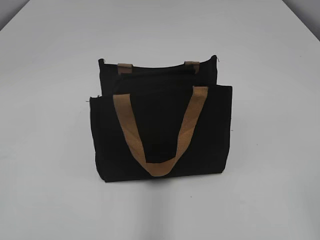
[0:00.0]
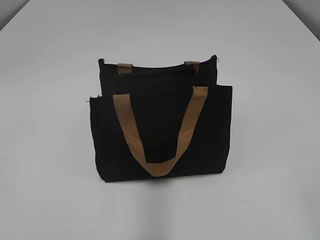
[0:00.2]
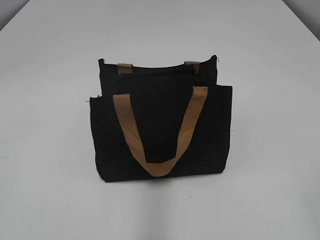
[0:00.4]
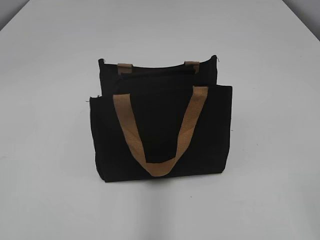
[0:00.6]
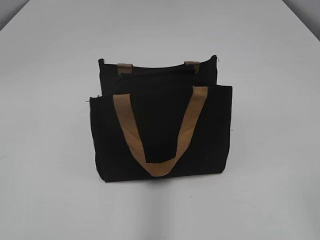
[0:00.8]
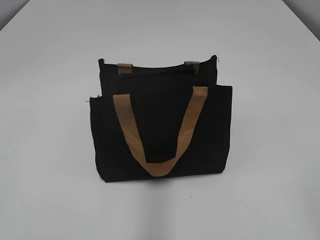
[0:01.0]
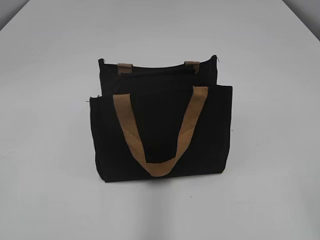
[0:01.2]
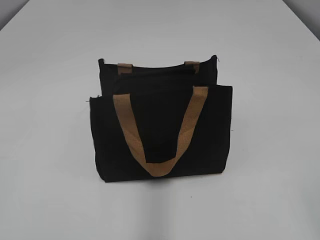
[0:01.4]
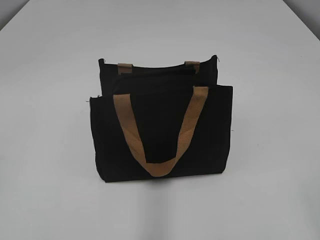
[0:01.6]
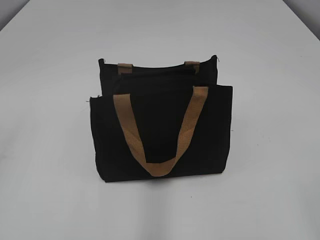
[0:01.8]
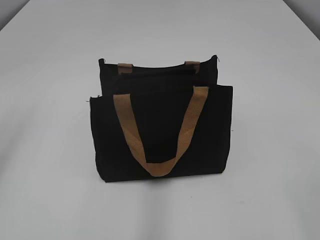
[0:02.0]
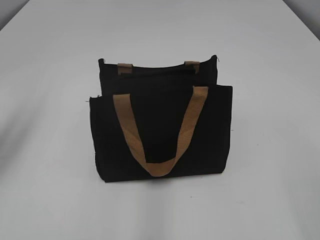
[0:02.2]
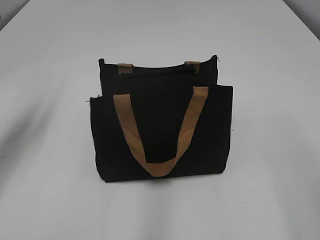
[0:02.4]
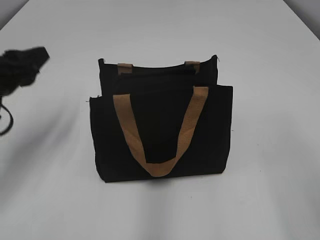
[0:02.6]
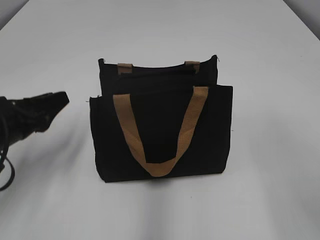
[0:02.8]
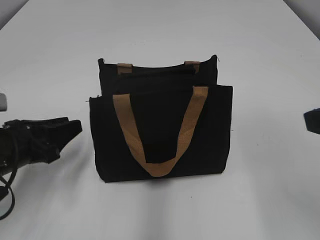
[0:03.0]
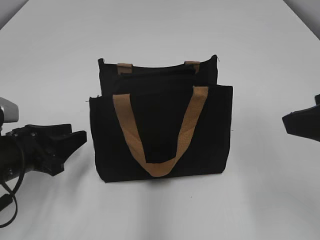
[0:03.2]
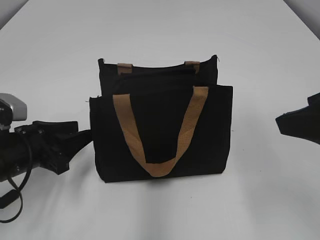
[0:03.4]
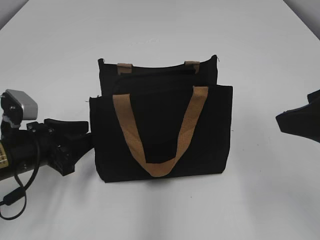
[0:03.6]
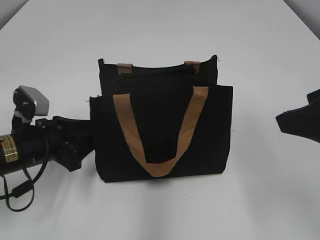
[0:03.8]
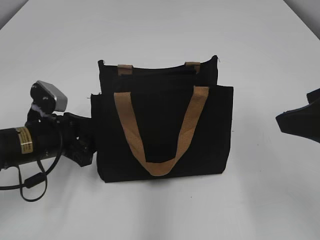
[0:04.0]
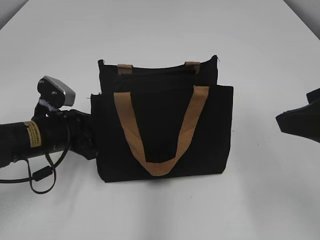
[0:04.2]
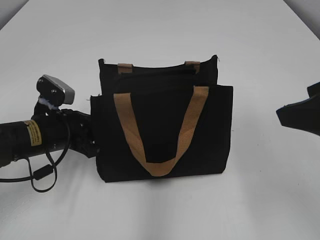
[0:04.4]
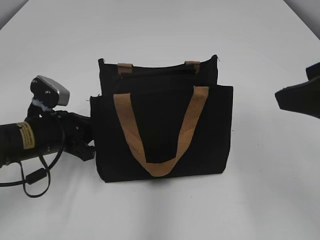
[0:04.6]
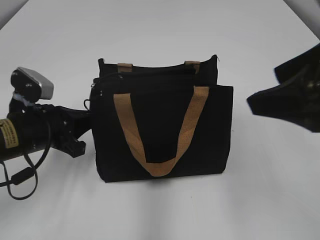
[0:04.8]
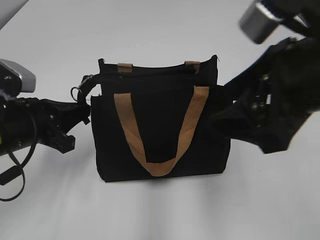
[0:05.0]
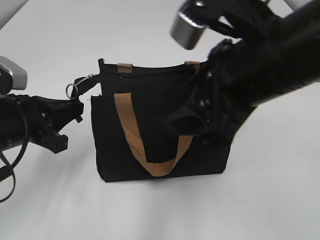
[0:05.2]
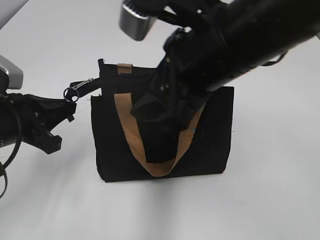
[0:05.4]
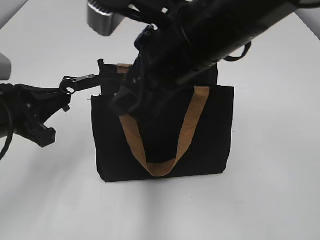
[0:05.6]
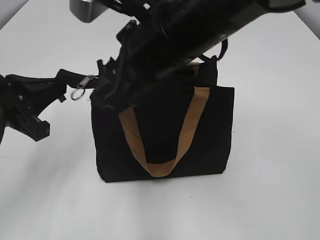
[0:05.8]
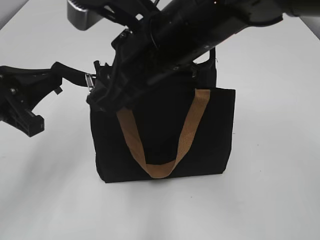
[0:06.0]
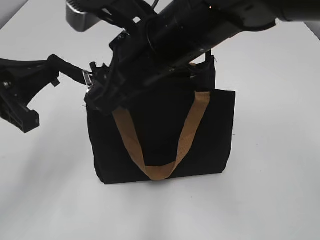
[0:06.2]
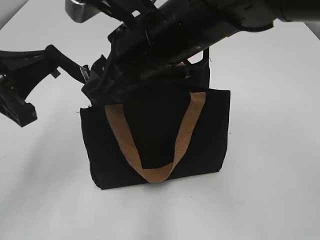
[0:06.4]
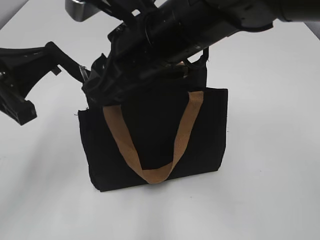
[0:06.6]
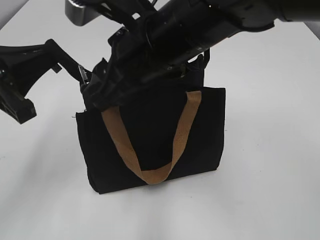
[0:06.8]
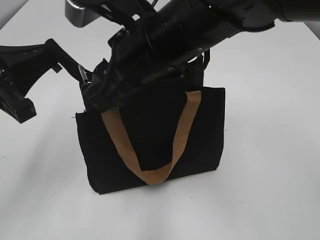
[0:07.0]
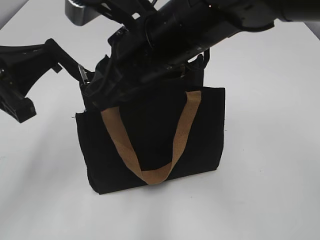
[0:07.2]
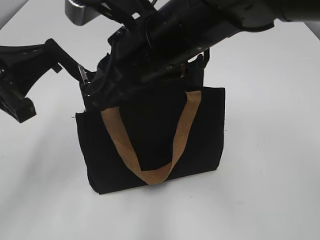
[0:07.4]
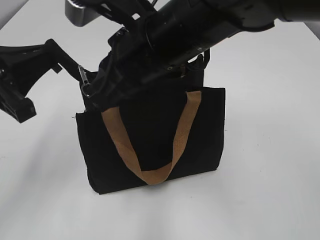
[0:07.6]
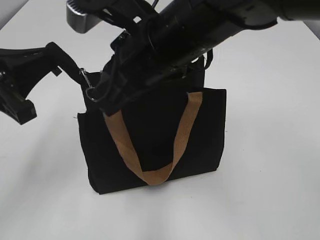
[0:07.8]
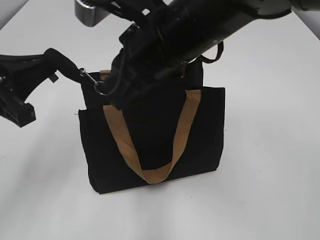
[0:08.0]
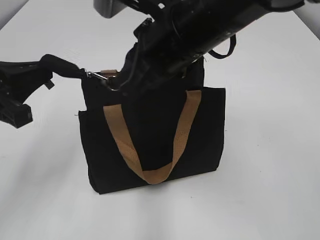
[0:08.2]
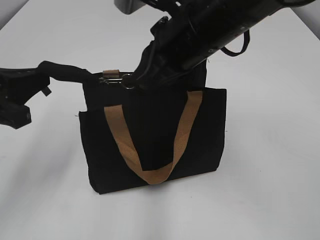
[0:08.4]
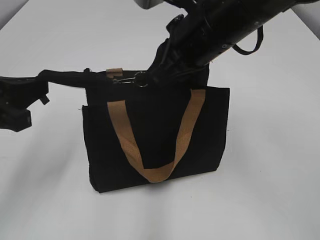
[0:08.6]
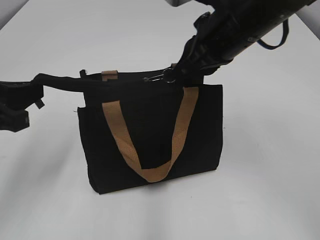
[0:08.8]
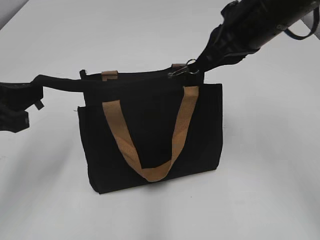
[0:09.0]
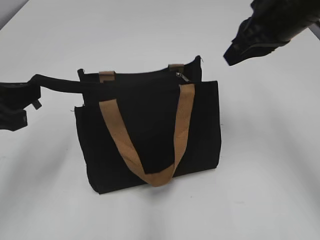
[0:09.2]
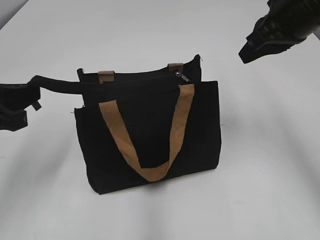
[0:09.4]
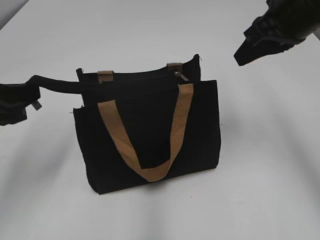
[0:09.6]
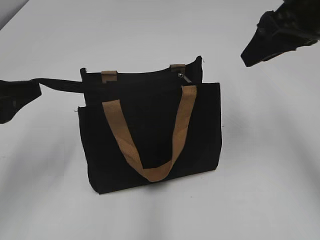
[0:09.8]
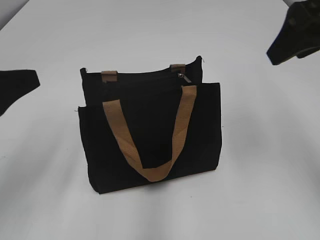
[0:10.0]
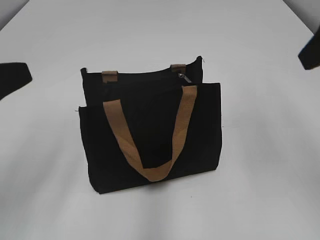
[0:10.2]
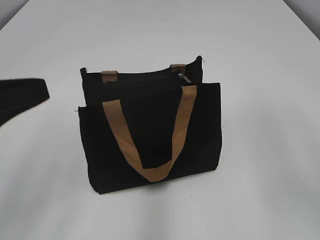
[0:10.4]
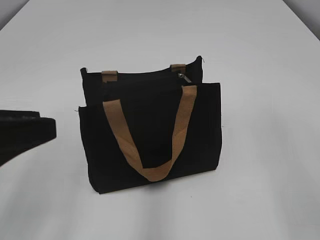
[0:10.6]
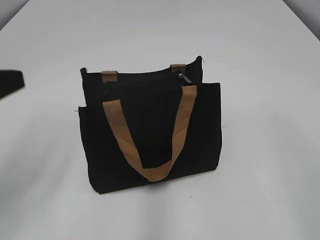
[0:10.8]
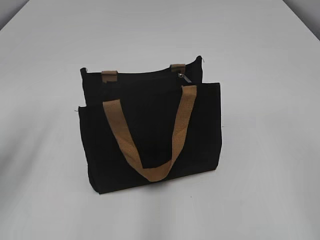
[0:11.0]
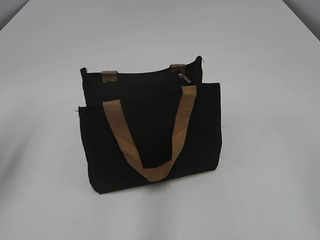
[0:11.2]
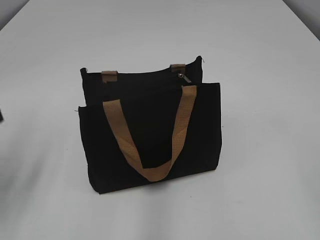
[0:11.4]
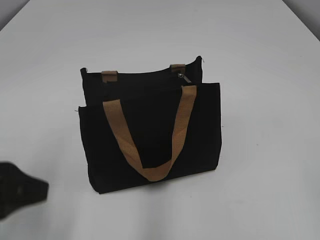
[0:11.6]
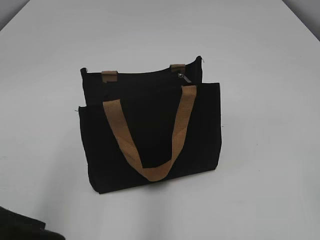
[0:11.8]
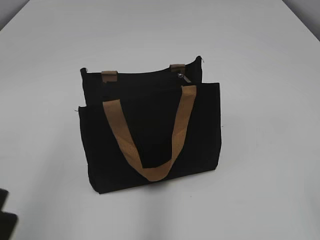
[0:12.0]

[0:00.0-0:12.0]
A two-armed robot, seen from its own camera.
Step, 0:00.0 to 0:09.0: Zip up the bag with your right hand.
Step, 0:09.4 to 0:09.8: Grab the zipper with your left hand.
0:01.6 to 0:03.0: The left gripper heads forward and downward, covering about 25 cm, while the right gripper heads forward, covering roughly 15 cm.
0:03.0 to 0:04.4: The left gripper travels forward by some 5 cm, and closes.
0:04.4 to 0:06.0: The left gripper is displaced upward and backward by roughly 15 cm. Meanwhile the right gripper shifts approximately 25 cm to the left and forward, and closes.
0:06.0 to 0:07.6: The right gripper closes its fingers.
0:07.6 to 0:09.0: The right gripper moves to the right and forward, approximately 15 cm.
0:09.0 to 0:10.4: The left gripper moves backward, about 5 cm, and opens up. The right gripper heads backward, to the right and upward, covering about 20 cm, and opens its fingers.
0:10.4 to 0:12.0: The left gripper is displaced backward by some 10 cm.

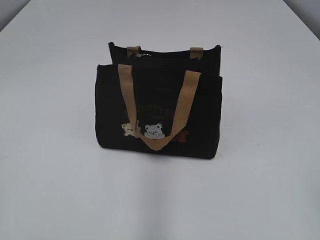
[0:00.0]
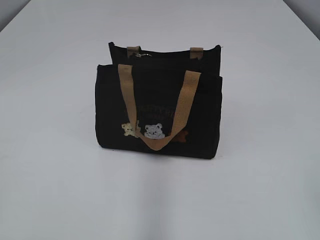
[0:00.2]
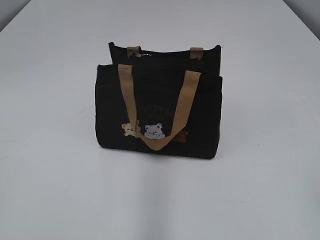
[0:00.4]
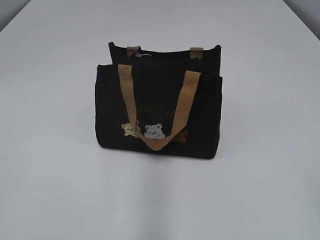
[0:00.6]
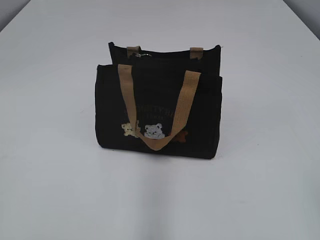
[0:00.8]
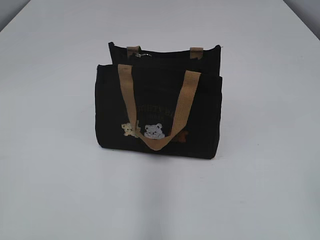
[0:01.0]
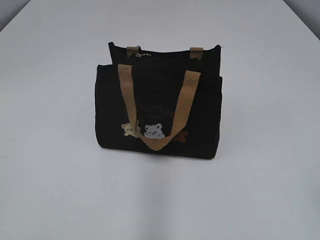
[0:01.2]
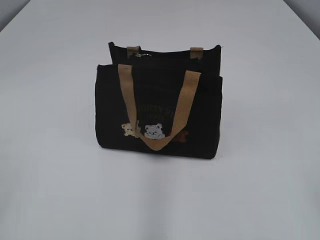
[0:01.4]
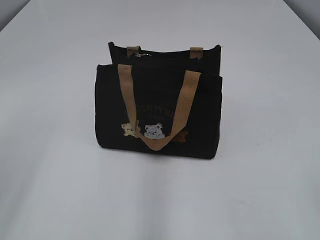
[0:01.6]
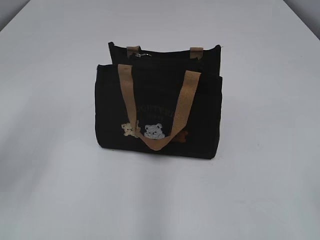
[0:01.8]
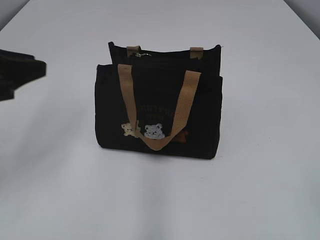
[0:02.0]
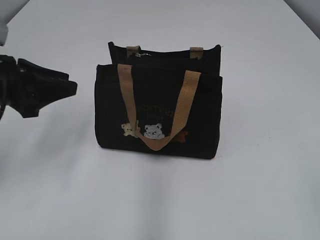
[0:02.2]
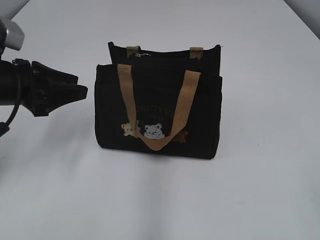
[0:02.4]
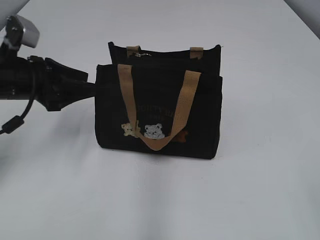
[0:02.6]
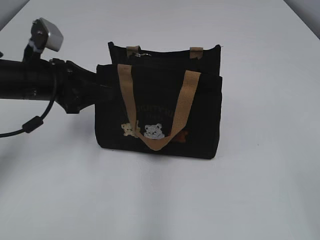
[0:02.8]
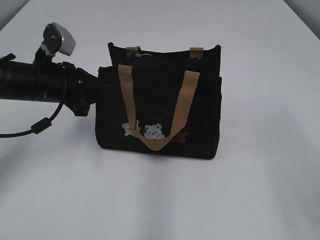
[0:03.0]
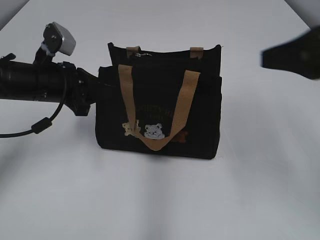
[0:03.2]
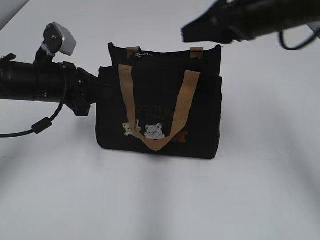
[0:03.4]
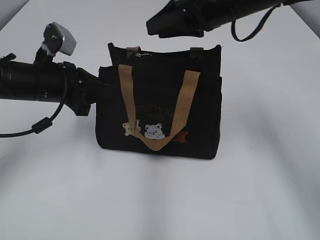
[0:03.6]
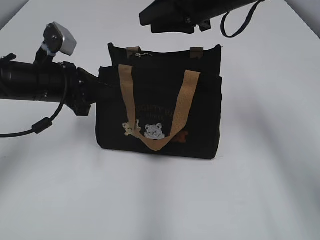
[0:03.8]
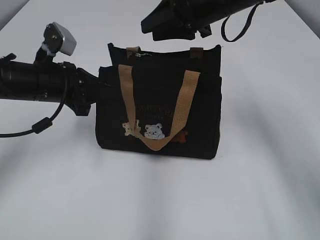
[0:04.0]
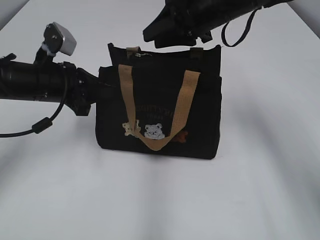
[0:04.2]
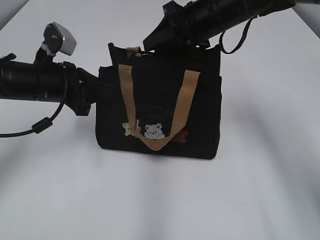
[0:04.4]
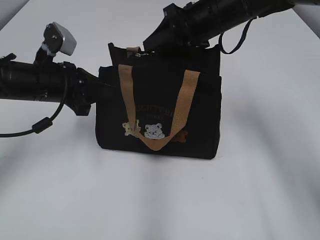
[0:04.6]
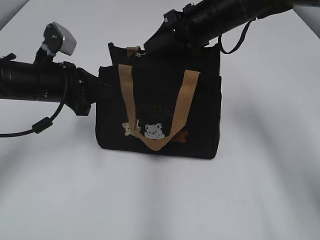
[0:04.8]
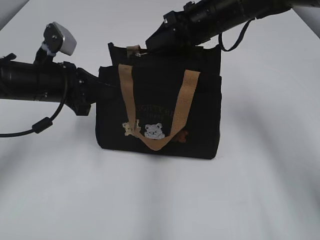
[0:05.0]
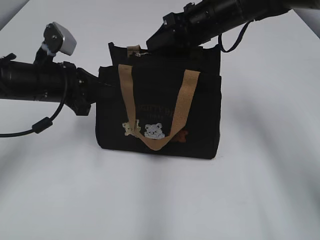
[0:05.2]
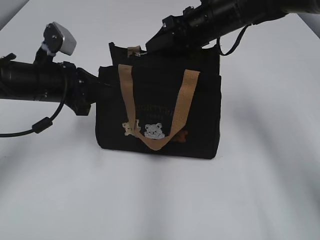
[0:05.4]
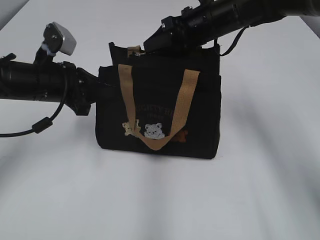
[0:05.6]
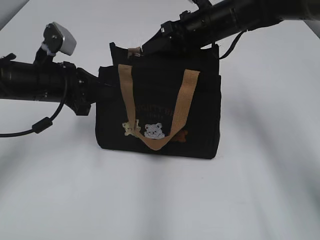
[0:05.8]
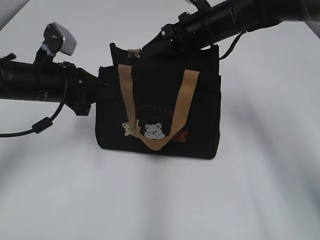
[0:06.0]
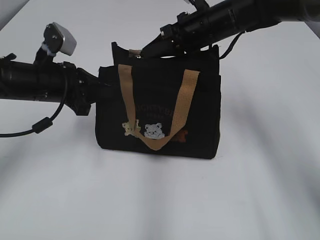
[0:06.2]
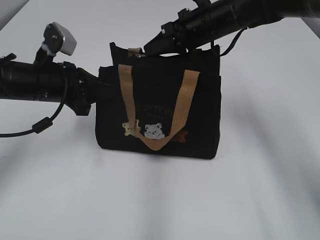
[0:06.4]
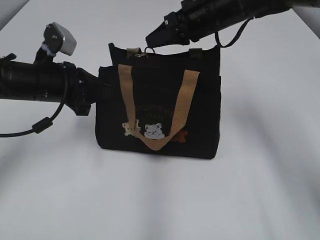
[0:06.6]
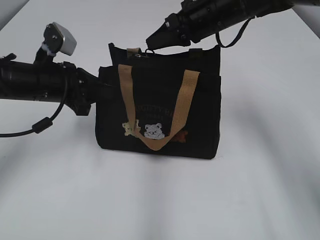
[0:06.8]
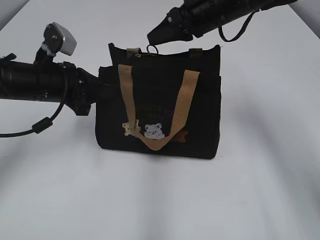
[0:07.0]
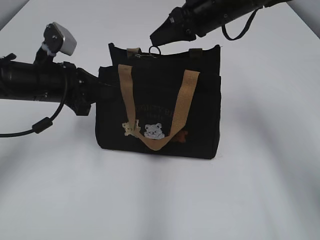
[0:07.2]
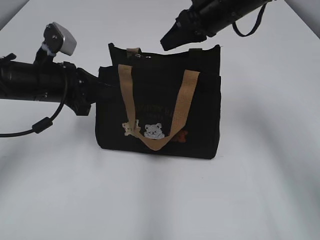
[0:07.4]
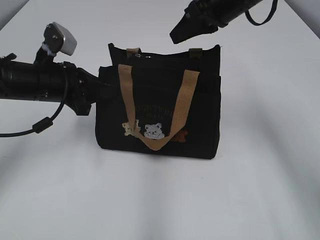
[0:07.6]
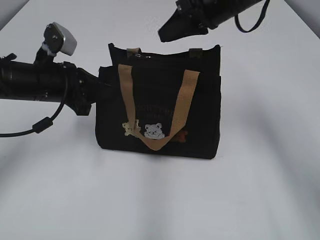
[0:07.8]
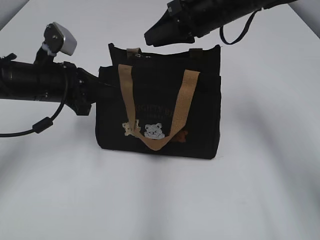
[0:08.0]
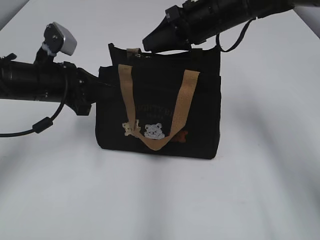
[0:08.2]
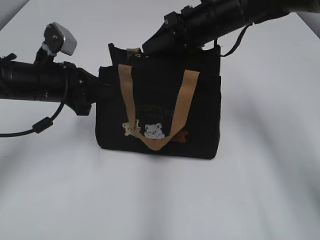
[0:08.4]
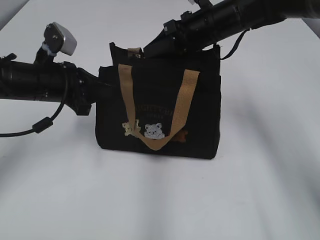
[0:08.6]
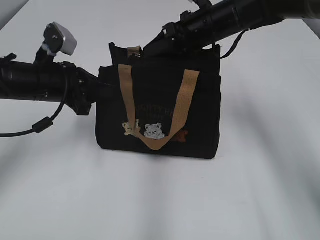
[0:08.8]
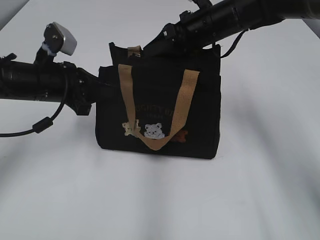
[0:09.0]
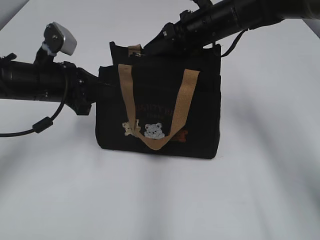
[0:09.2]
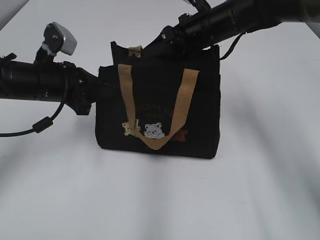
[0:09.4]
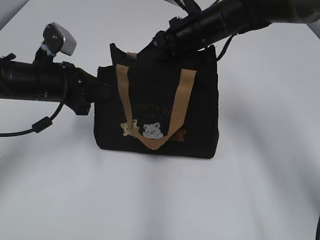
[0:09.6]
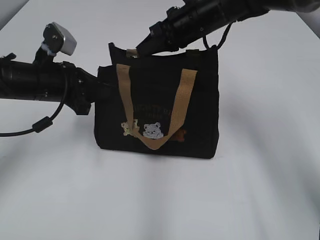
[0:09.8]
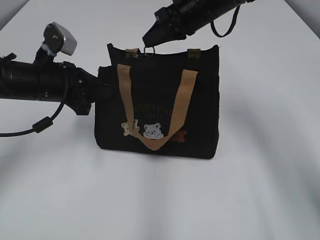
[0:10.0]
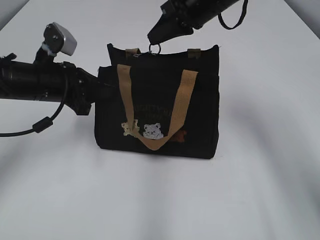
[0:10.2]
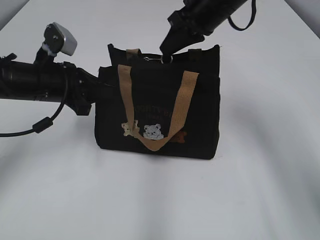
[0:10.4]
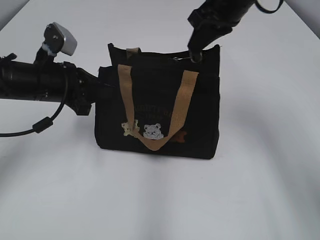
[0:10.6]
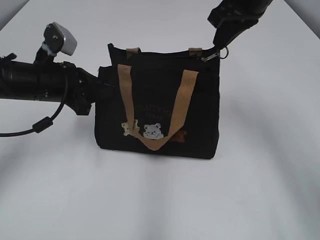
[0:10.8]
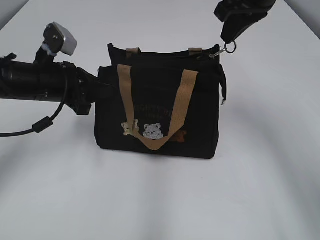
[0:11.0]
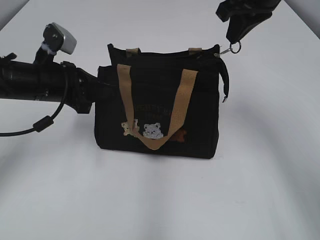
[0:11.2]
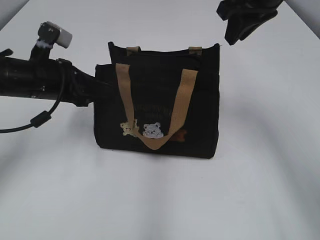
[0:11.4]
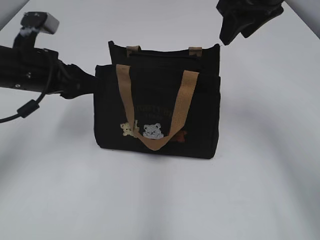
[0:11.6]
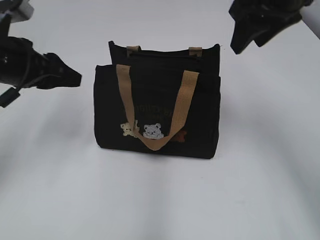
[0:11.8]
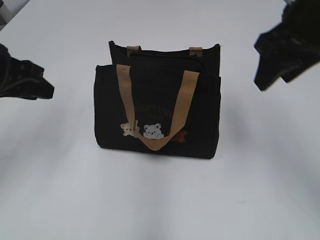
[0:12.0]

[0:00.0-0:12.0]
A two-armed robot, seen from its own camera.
Step, 0:00.0 to 0:11.2: Pull open the zipper with your right hand.
Step, 0:11.4 to 0:11.6: Hold the bag with your left hand.
0:01.6 to 0:03.0: The left gripper heads forward, downward and to the right, covering some 30 cm, and closes.
0:03.0 to 0:04.4: The right gripper moves forward and to the left, approximately 35 cm.
0:04.4 to 0:06.0: There are only small adjustments of the grippers.
0:06.0 to 0:07.6: The right gripper goes roughly 5 cm upward, and closes.
0:07.6 to 0:09.0: The right gripper travels downward by approximately 5 cm, and opens up.
0:09.0 to 0:10.4: The right gripper heads upward, covering about 5 cm, and closes.
0:10.4 to 0:12.0: The left gripper is displaced upward and backward by roughly 10 cm, and opens up. Meanwhile the right gripper travels backward and to the right by approximately 15 cm, and opens up.
